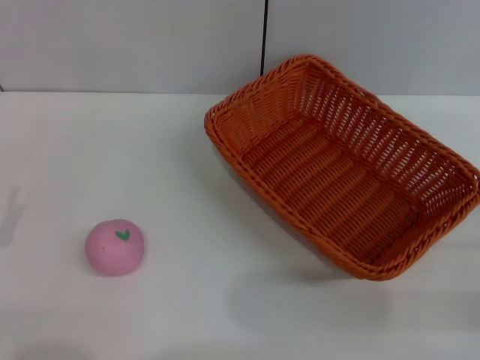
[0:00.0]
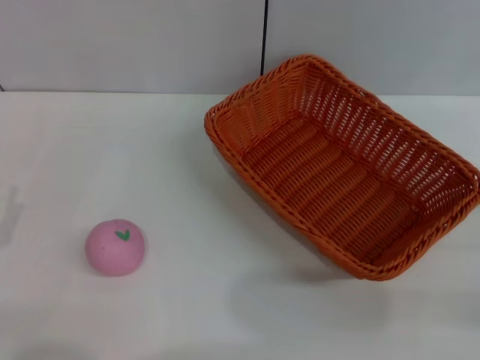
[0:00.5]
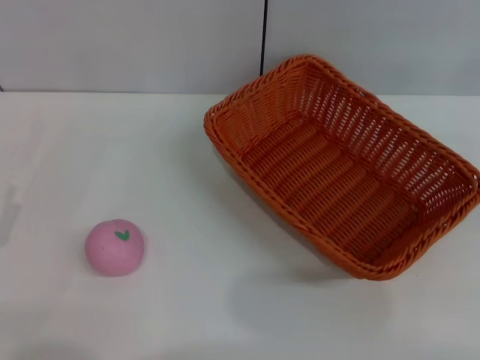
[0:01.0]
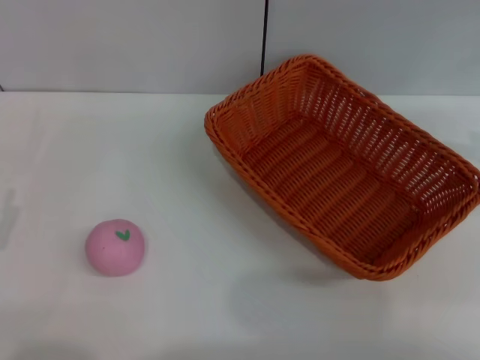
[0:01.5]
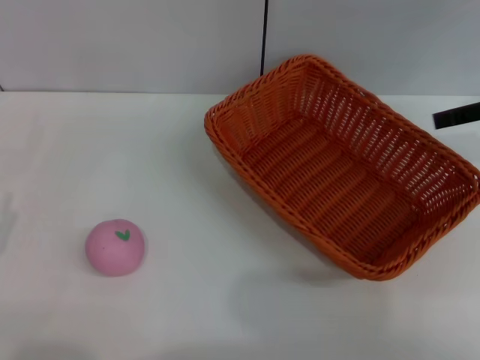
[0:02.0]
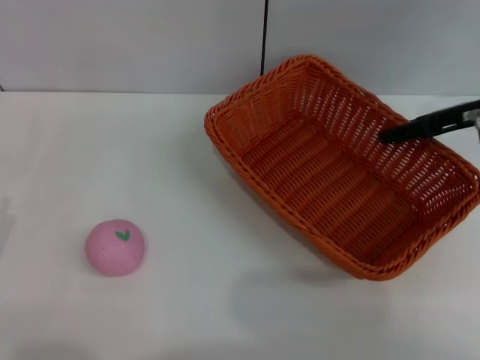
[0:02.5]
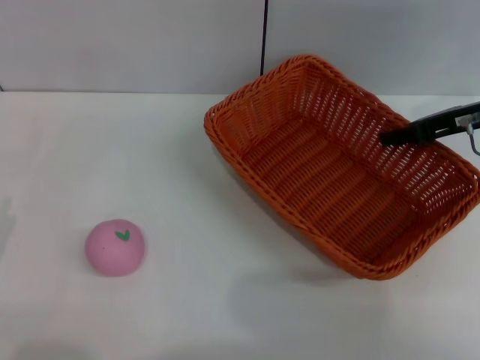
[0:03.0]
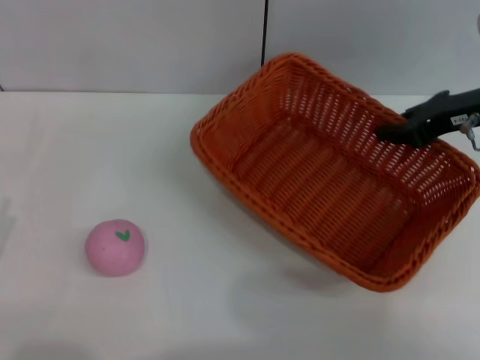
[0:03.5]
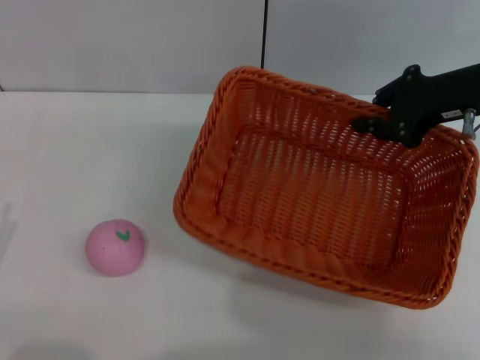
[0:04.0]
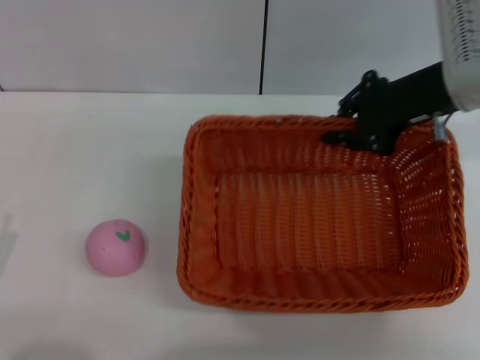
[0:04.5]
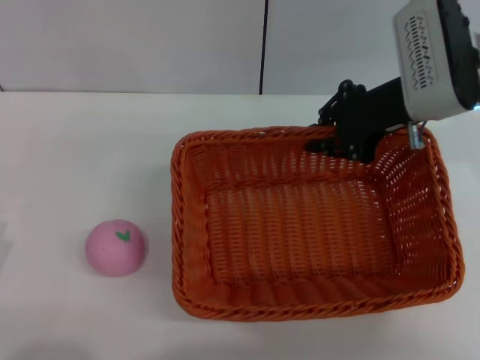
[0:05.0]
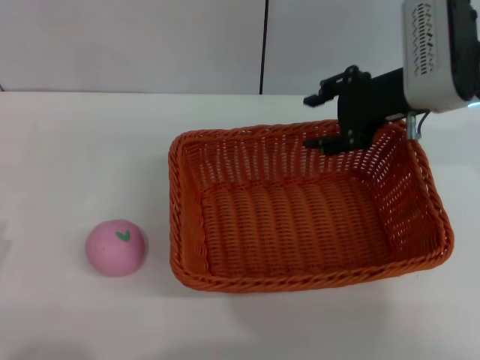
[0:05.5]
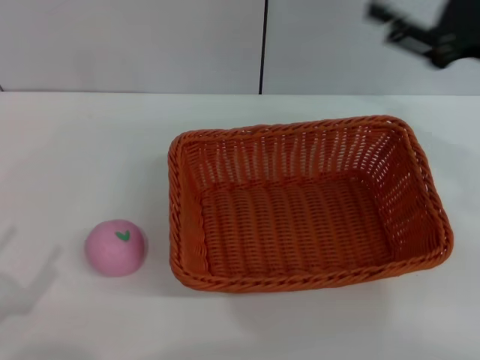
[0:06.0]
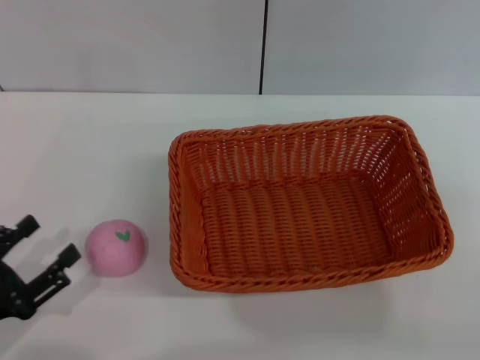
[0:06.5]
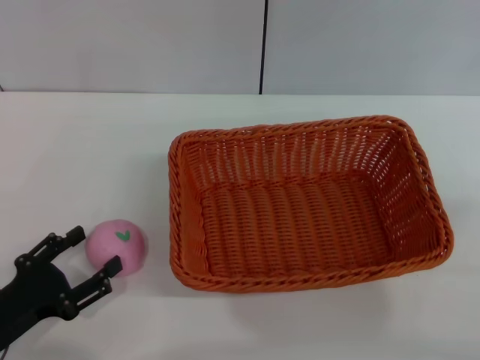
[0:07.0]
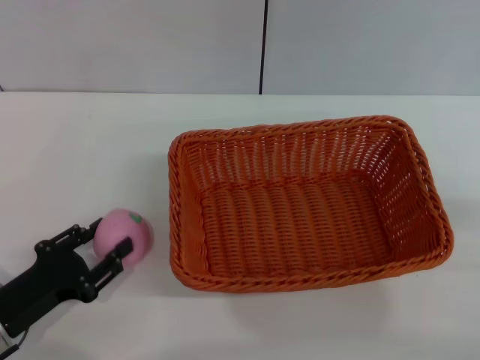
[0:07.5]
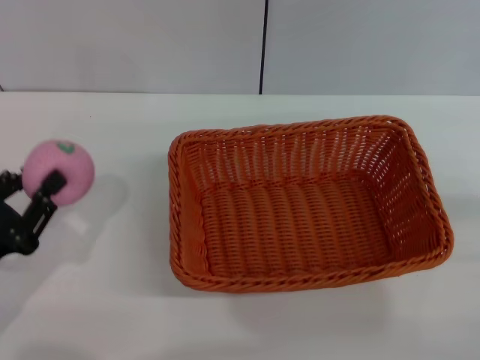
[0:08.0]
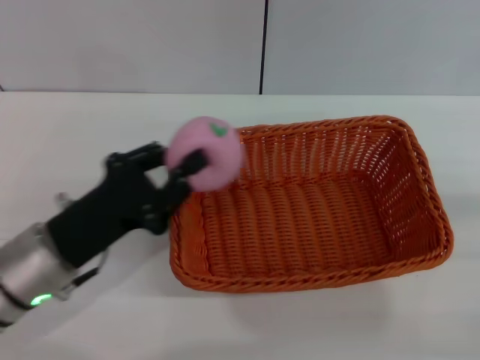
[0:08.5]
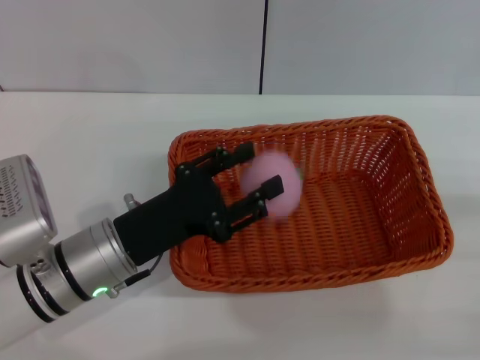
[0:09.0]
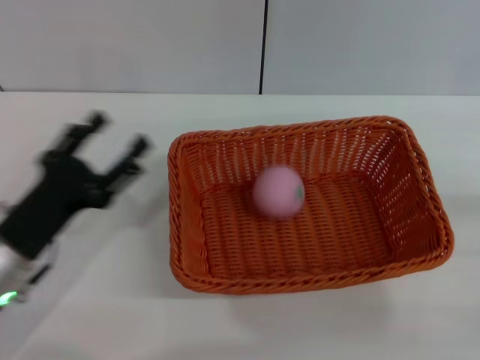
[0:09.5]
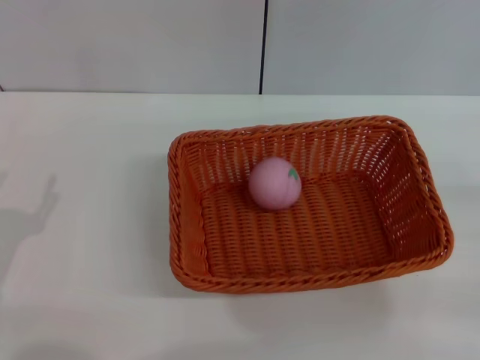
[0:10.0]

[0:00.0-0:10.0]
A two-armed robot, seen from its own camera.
Step, 0:00.0 to 0:04.0: Pick up the light basket with the right gripper.
Step, 0:04.5 to 0:05.5: Place the light basket in the center of view with the right gripper.
Step, 0:06.0 to 0:08.0: Pick up the peach with the left gripper.
Step, 0:08.5 to 0:09.0: Place the peach into the basket with the left gripper.
0:00.0 to 0:02.0: The right gripper travels forward and upward by about 20 cm.
0:02.0 to 0:04.0: The right gripper travels to the left by about 10 cm, and closes.
0:04.0 to 0:06.0: The right gripper goes approximately 5 cm backward, goes to the left and returns, roughly 5 cm each way, and opens.
0:06.0 to 0:08.0: The left gripper travels forward by some 10 cm, and closes up, while the right gripper travels backward, downward and to the right by some 20 cm.
0:08.0 to 0:10.0: The left gripper reaches approximately 15 cm to the right, then returns, and opens.

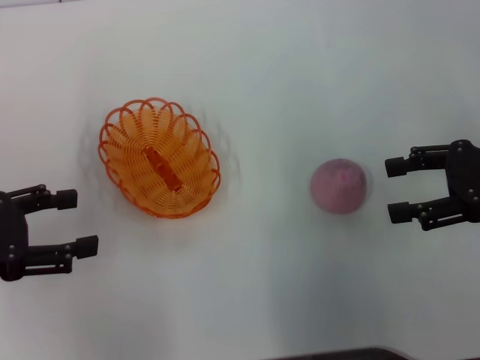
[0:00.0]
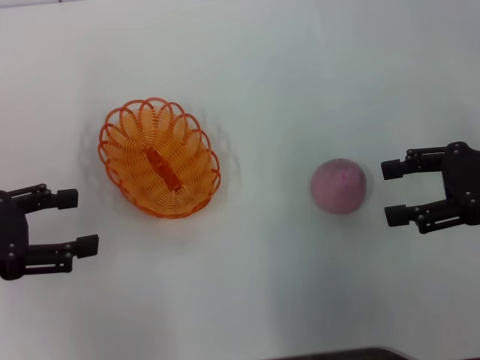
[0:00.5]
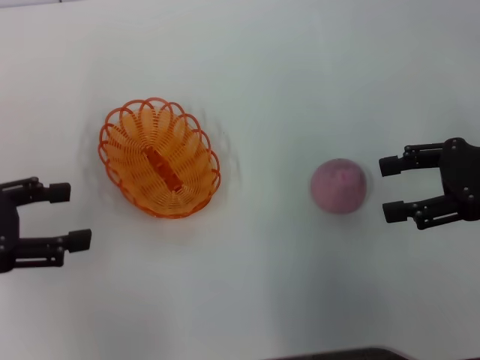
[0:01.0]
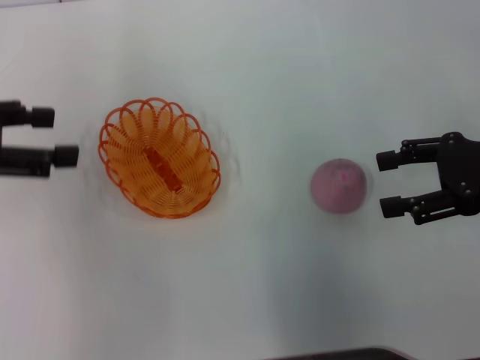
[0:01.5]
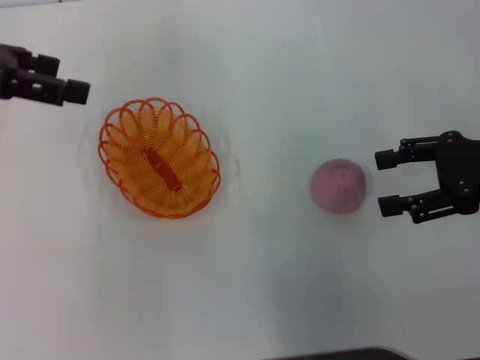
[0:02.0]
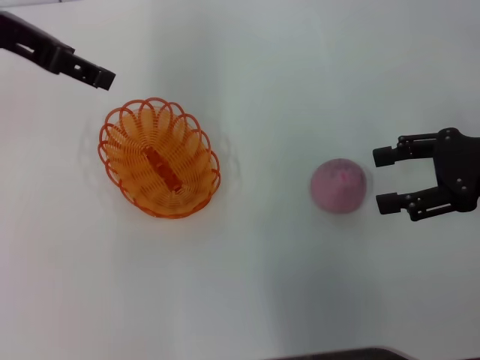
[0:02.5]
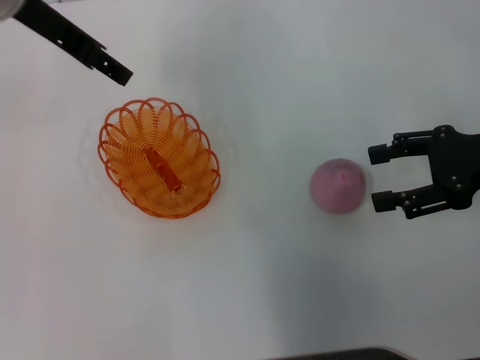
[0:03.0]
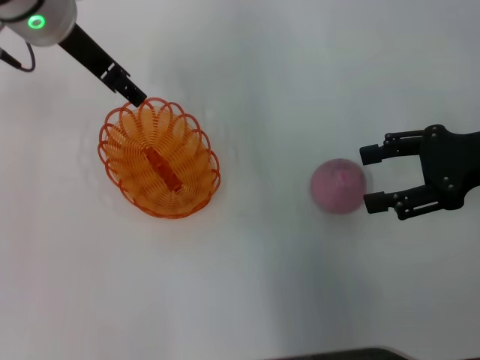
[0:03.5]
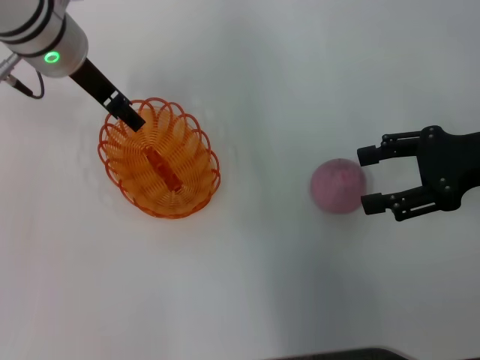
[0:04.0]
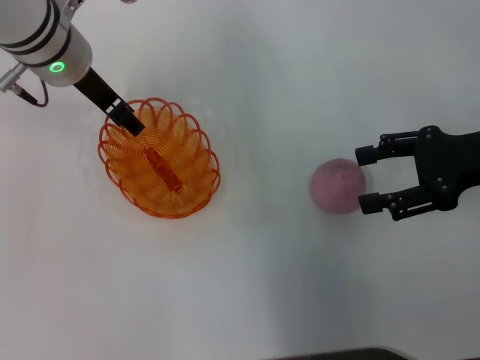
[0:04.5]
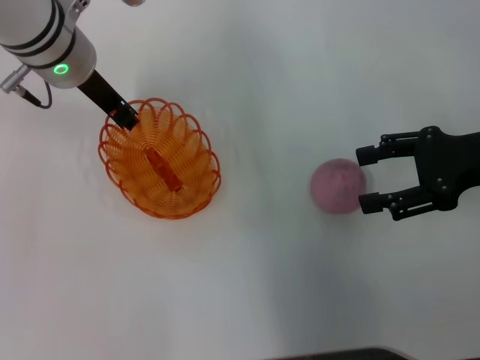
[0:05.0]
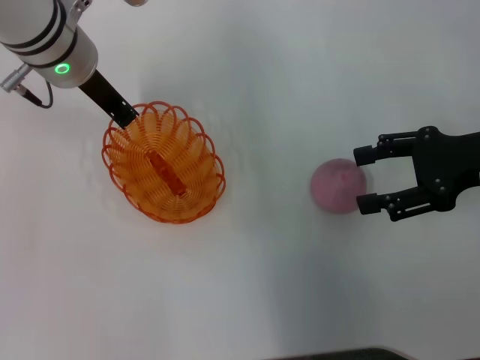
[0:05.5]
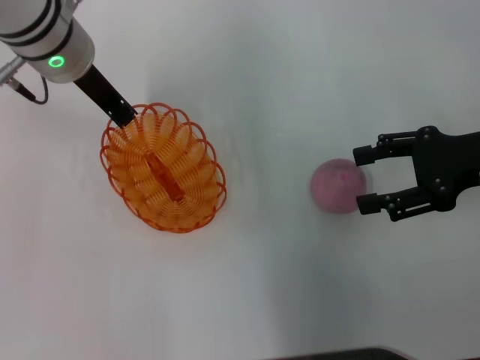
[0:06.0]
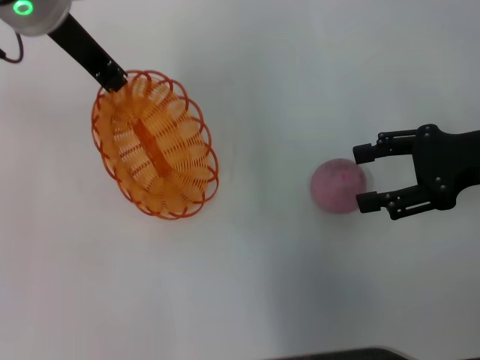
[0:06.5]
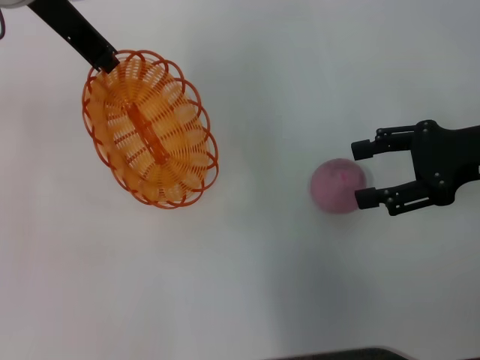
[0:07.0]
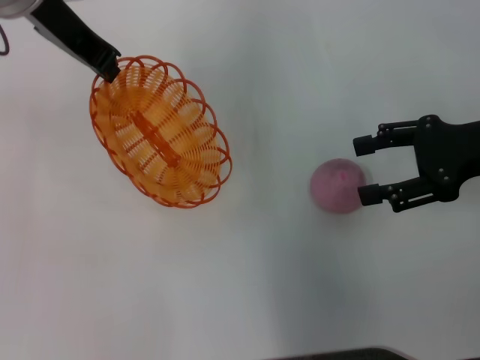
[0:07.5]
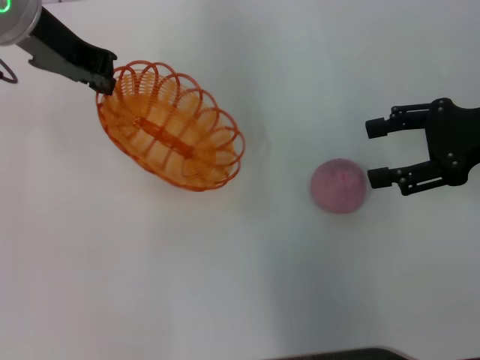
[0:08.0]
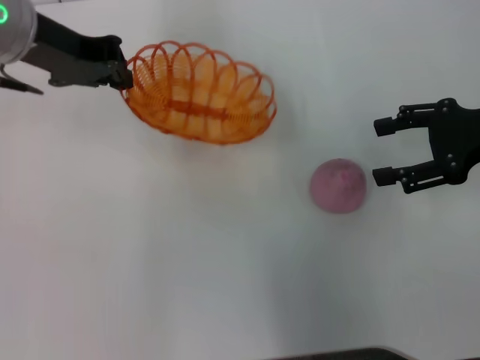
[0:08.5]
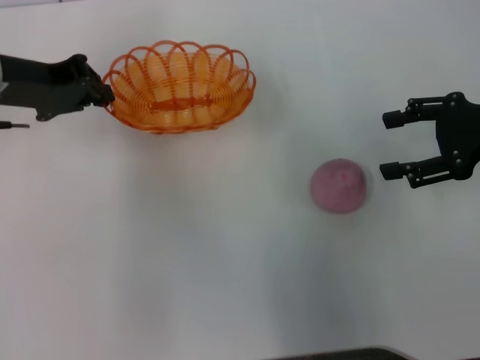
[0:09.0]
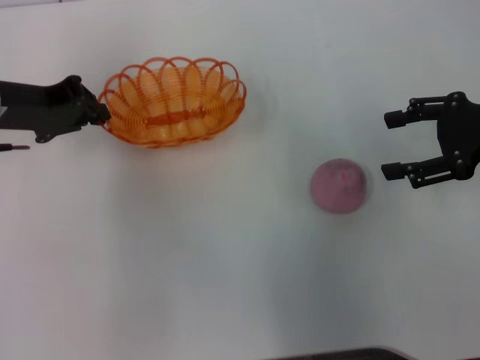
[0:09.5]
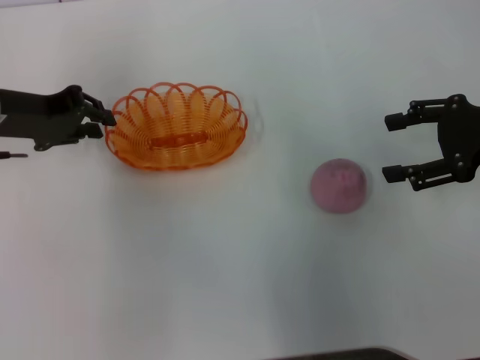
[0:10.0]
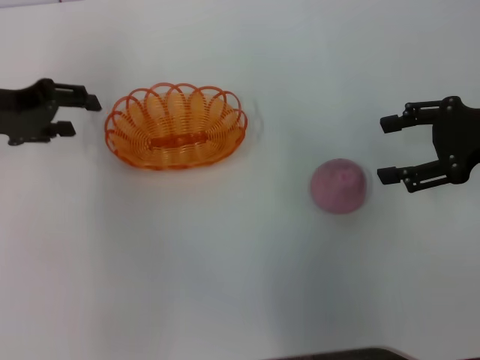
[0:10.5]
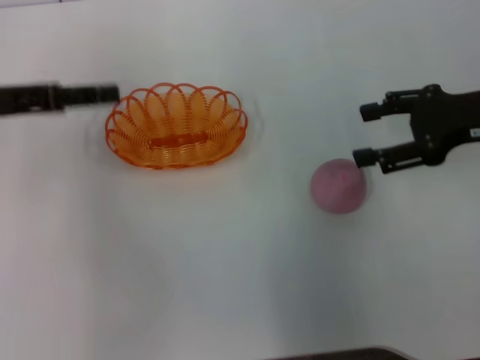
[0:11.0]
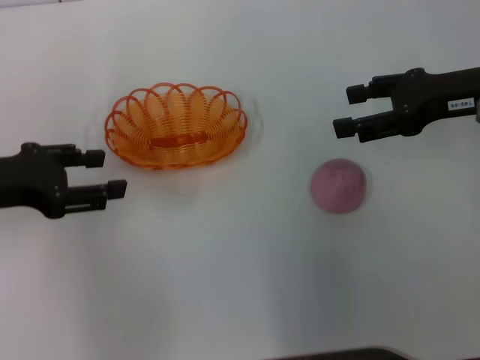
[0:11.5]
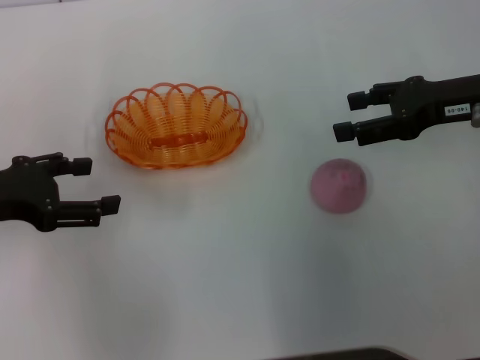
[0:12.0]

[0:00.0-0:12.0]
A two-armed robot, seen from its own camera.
Step, 0:00.0 to 0:06.5: Pick up the basket with the left gripper.
Step, 0:07.0 to 0:11.0: Place the basket in the center of view with the left gripper.
0:00.0 to 0:02.0: The left gripper moves upward and forward, roughly 15 cm.
0:02.0 to 0:04.0: The left gripper heads to the right, downward and forward, covering approximately 15 cm.
0:04.0 to 0:06.0: The left gripper closes up.
0:06.0 to 0:08.0: The left gripper shifts some 5 cm upward.
0:08.0 to 0:10.0: The left gripper goes about 15 cm downward and to the left.
0:10.0 to 0:12.0: The left gripper moves backward, roughly 10 cm, and opens up.

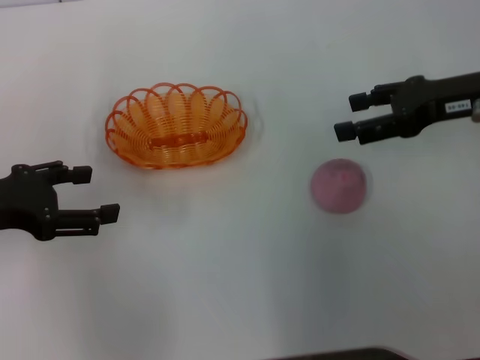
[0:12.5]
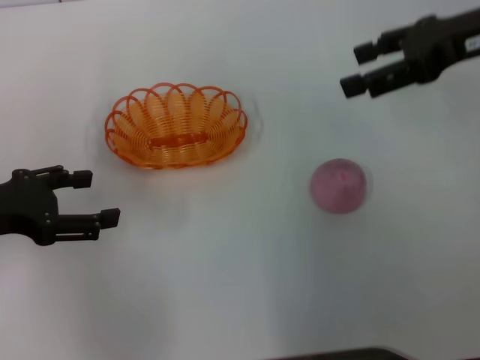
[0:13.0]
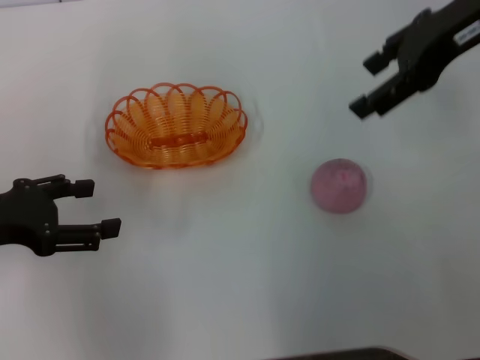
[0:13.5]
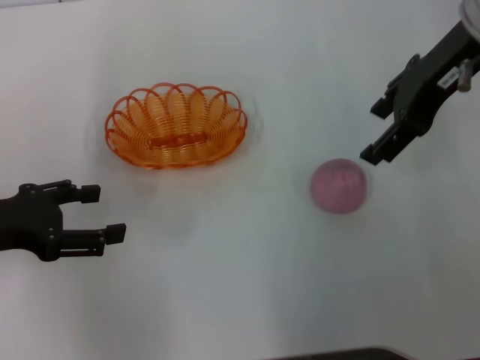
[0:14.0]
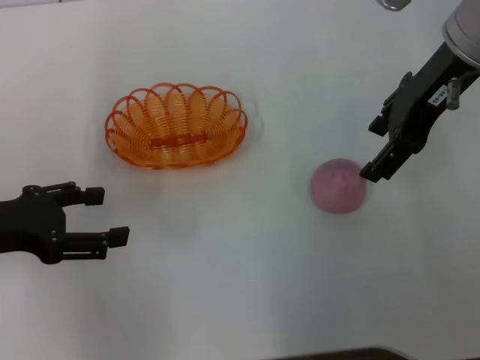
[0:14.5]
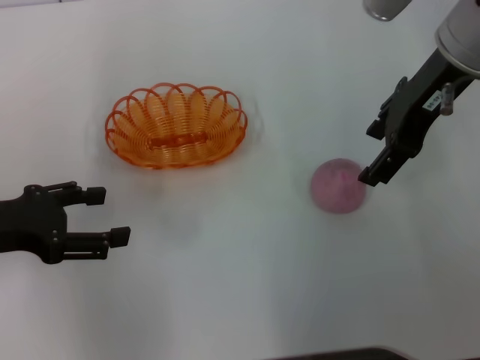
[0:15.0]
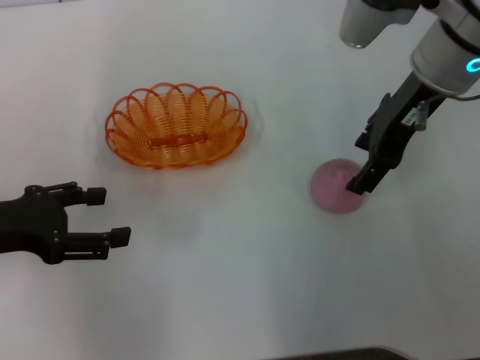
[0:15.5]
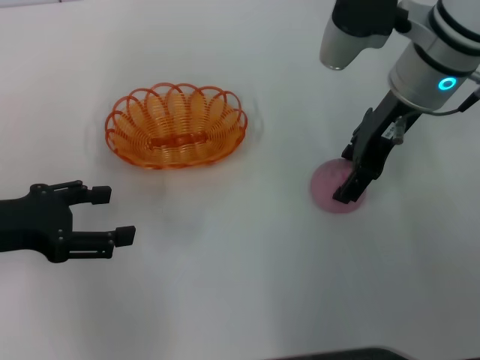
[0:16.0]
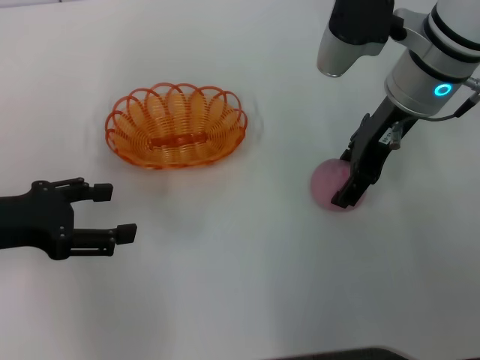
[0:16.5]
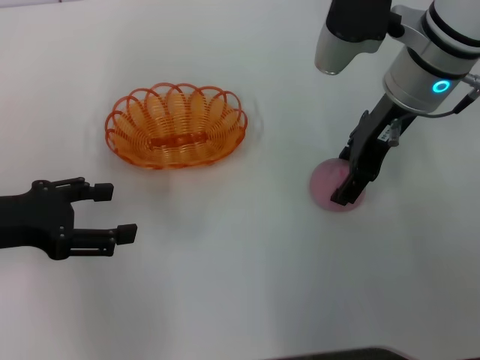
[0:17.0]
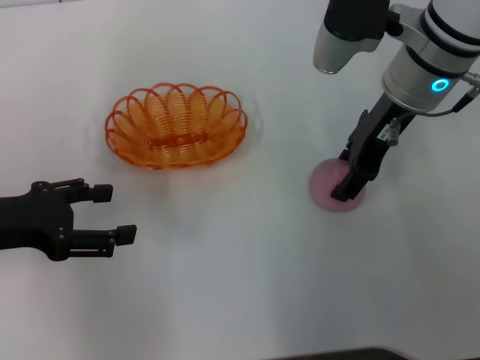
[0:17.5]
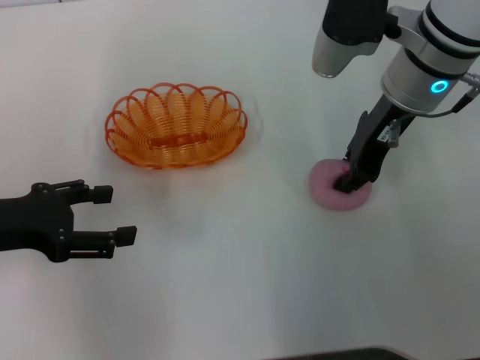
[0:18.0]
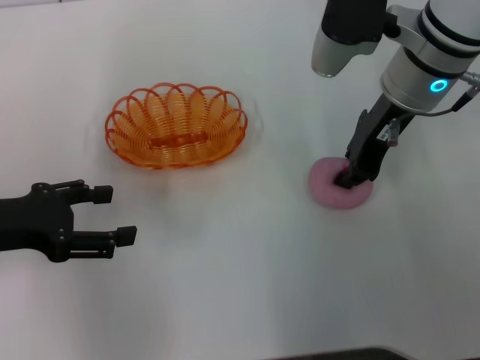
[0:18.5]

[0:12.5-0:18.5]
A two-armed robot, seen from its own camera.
0:12.5 to 0:14.5: The right gripper travels to the left and upward by roughly 15 cm.
0:14.5 to 0:16.5: The right gripper heads downward, covering approximately 5 cm.
0:16.5 to 0:18.5: The right gripper closes.
